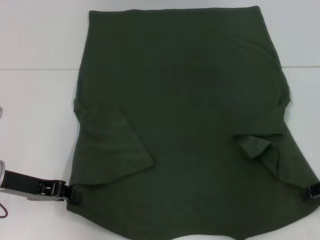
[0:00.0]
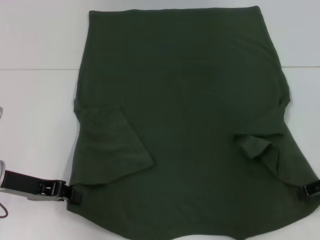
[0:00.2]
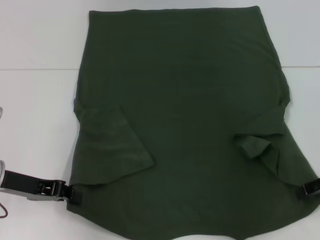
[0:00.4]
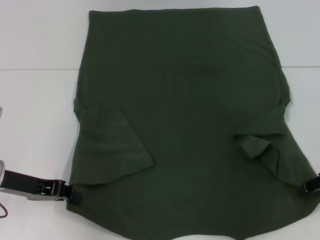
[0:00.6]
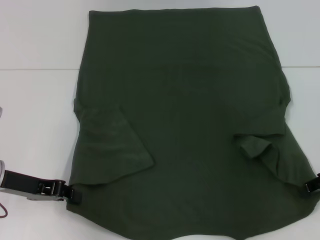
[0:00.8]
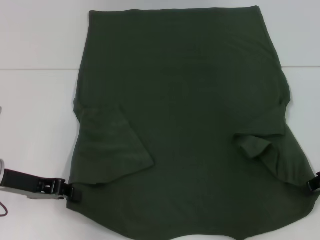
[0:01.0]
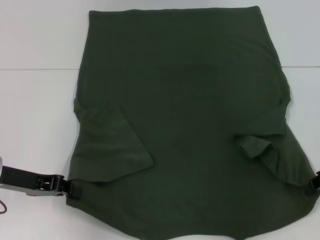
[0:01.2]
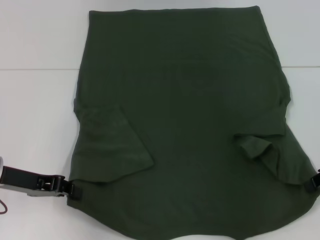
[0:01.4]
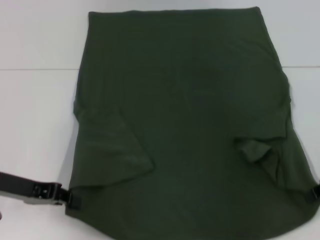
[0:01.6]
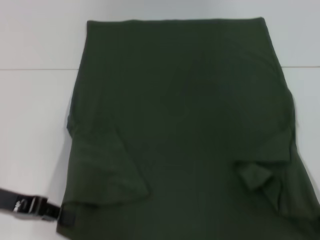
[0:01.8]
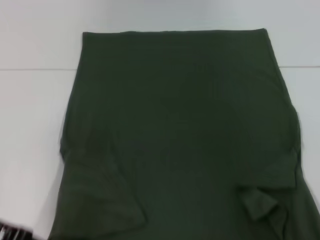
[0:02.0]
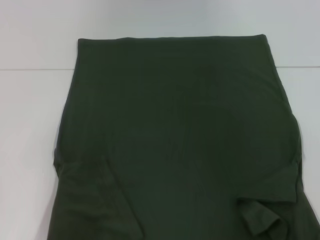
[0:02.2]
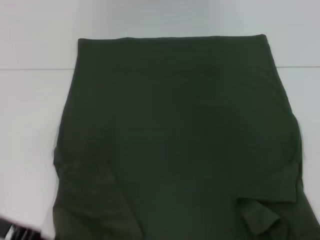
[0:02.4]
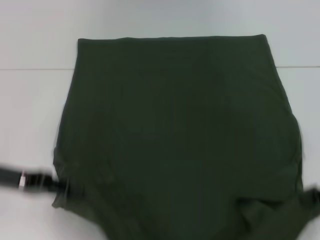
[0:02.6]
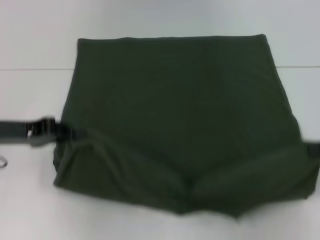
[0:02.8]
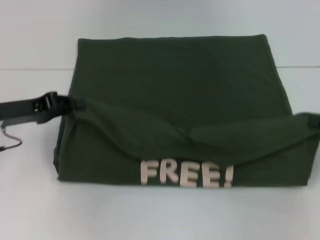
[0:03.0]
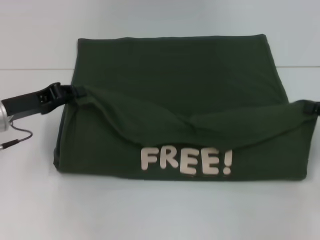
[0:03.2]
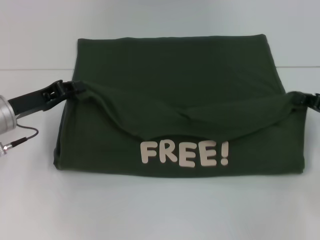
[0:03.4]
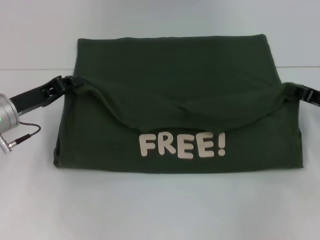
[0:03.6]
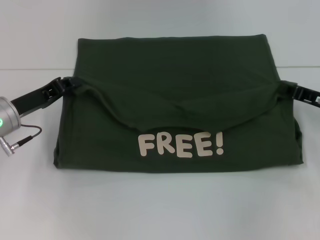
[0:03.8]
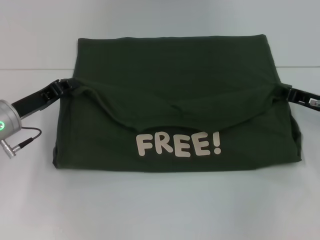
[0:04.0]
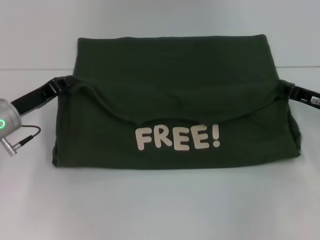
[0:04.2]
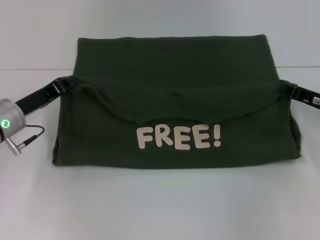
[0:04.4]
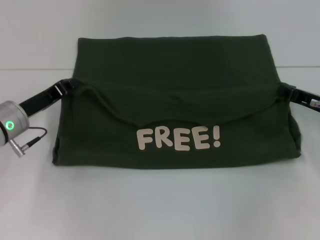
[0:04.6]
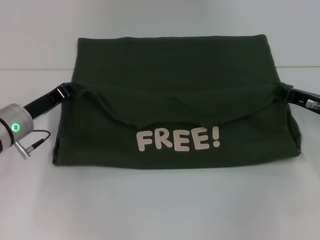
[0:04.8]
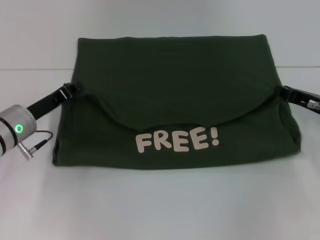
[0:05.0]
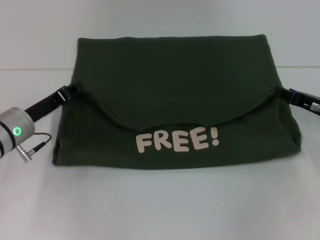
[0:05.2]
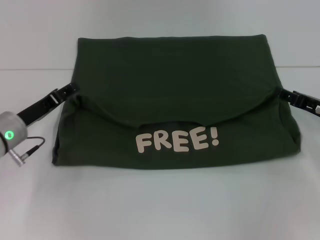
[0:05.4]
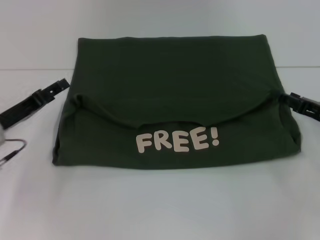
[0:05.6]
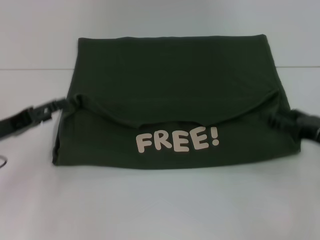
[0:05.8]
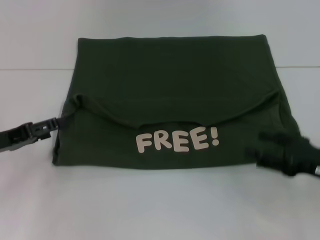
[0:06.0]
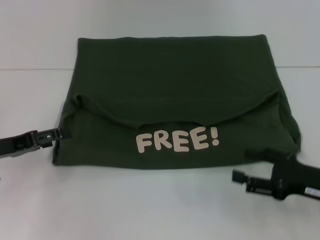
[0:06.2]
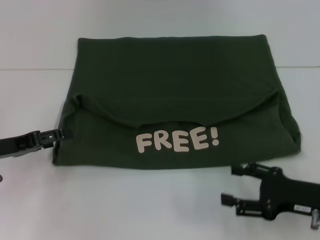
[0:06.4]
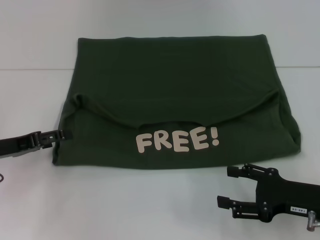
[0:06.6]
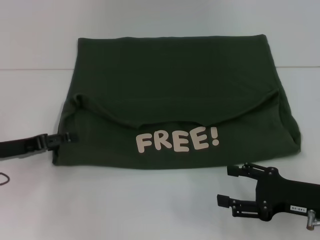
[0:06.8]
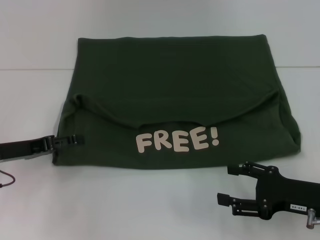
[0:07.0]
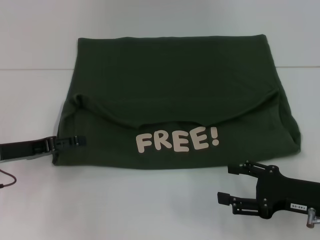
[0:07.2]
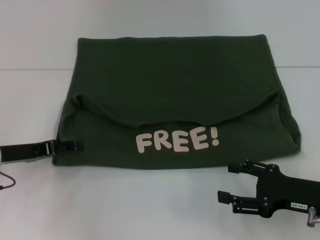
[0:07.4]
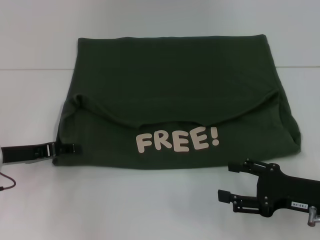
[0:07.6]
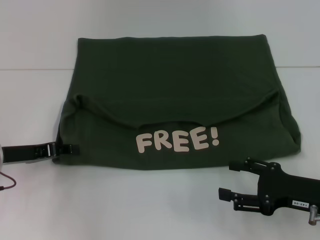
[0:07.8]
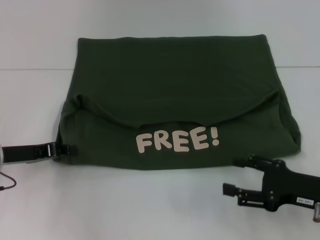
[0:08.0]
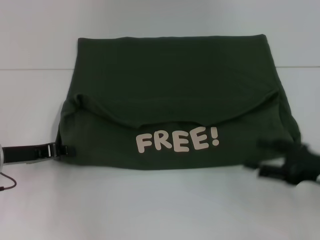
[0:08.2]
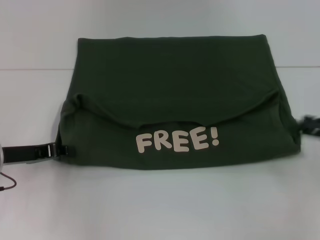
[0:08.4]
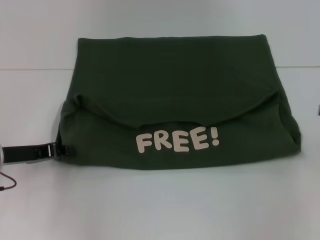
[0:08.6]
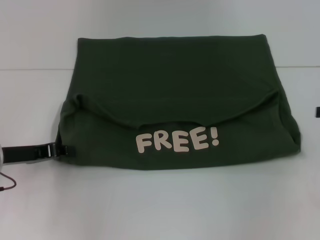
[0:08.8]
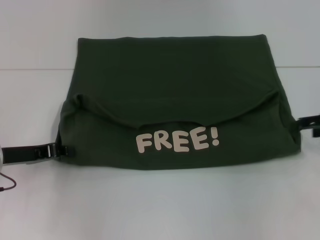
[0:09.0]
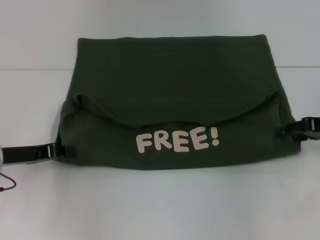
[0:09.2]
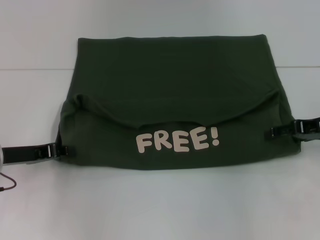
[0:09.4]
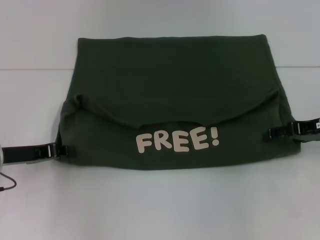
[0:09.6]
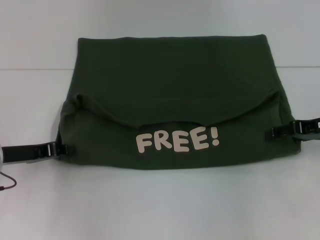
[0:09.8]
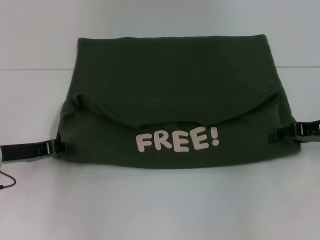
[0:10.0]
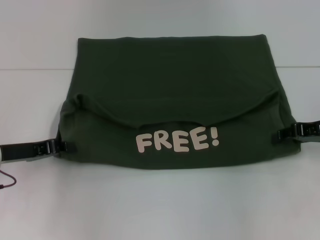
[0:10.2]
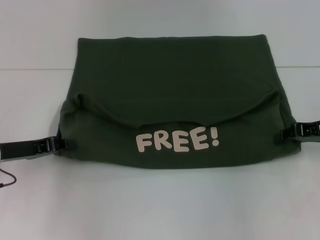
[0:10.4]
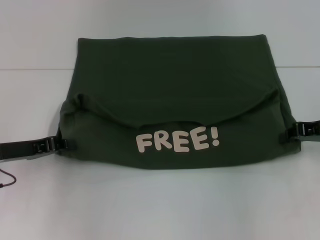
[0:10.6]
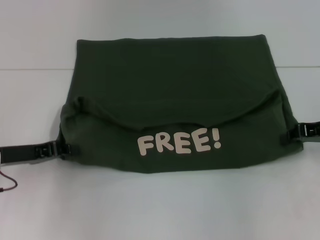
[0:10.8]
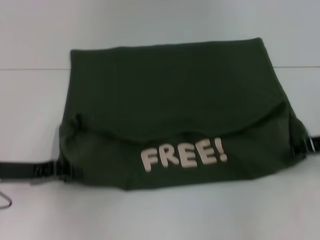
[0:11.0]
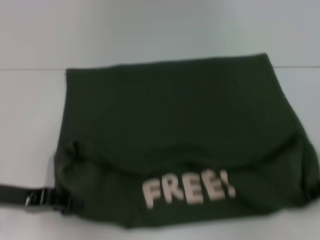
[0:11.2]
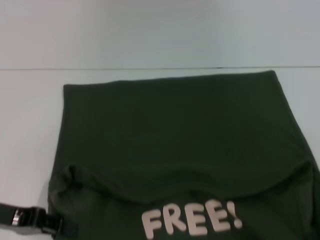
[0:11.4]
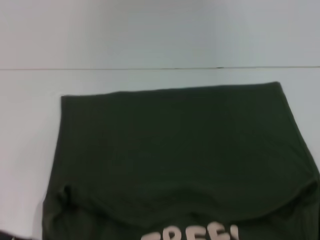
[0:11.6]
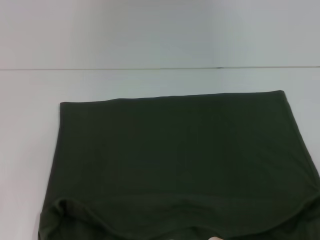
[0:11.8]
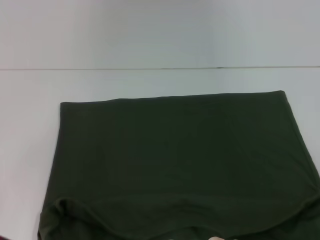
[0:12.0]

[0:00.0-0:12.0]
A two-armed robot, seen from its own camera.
Step, 0:01.6 to 0:05.4: Fold the clothes with your left hand.
Step, 0:01.6 to 0:05.4: Fold the clothes with your right hand.
Step, 0:05.6 to 0:11.6: Pull the clothes with your left hand.
Step, 0:05.6 to 0:11.6: Pull the clothes with your right hand.
0:00.0 to 0:01.6: The right gripper closes.
0:01.6 to 0:03.0: The left gripper moves some 5 cm.
0:03.0 to 0:04.4: The left gripper changes place by about 5 cm, while the right gripper shifts some 10 cm to the left, forward and downward.
0:04.4 to 0:06.0: The left gripper is displaced backward and to the left by approximately 10 cm, and opens. Meanwhile the right gripper heads backward, covering about 10 cm, and opens its fingers.
0:06.0 to 0:07.6: The grippers make only small movements.
0:07.6 to 0:09.0: The right gripper shifts approximately 15 cm forward, upward and to the right.
0:09.0 to 0:10.4: The right gripper closes up.
0:10.4 to 0:12.0: The right gripper shifts some 15 cm backward, and closes up. The left gripper travels backward by about 10 cm.

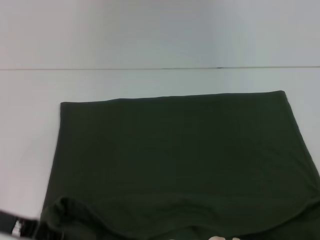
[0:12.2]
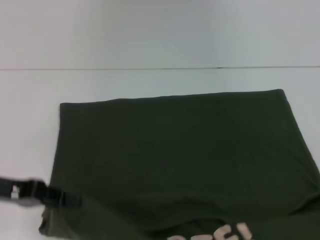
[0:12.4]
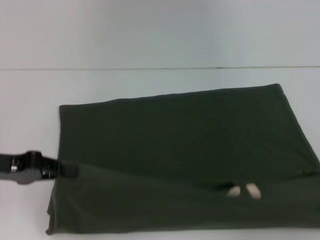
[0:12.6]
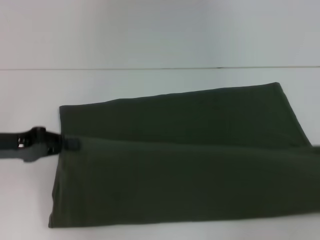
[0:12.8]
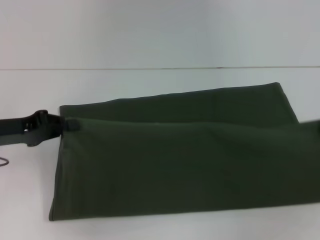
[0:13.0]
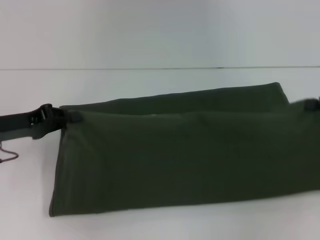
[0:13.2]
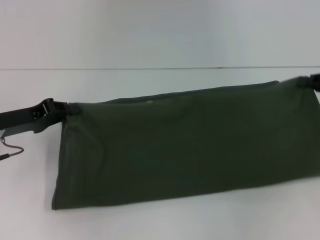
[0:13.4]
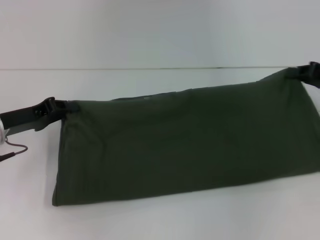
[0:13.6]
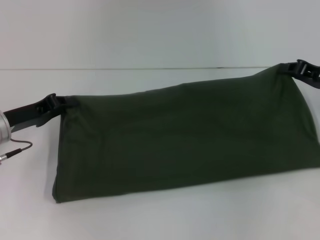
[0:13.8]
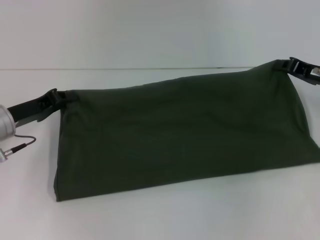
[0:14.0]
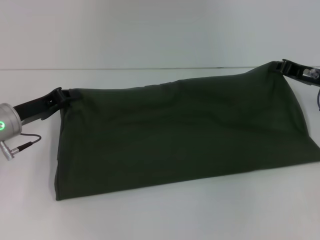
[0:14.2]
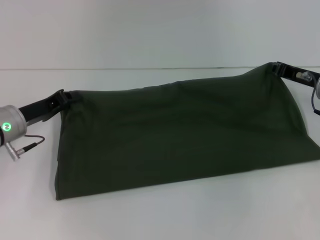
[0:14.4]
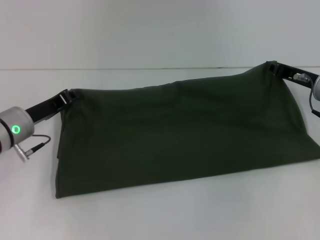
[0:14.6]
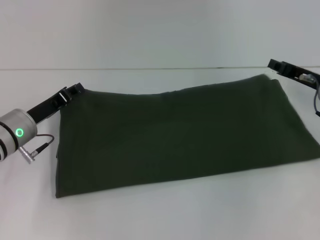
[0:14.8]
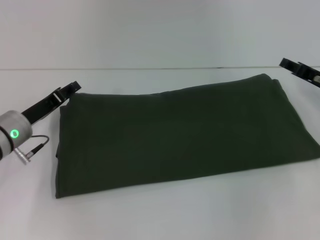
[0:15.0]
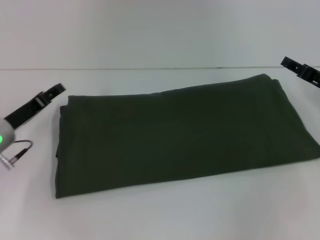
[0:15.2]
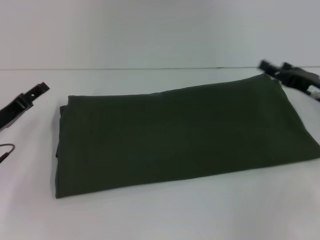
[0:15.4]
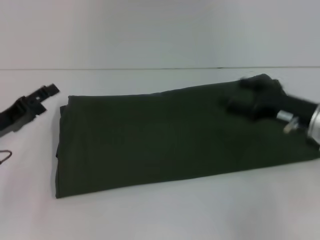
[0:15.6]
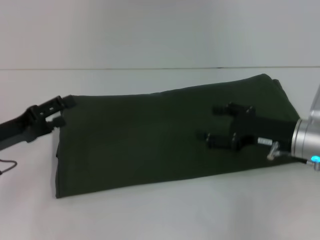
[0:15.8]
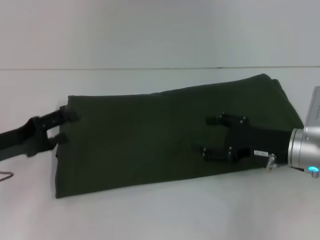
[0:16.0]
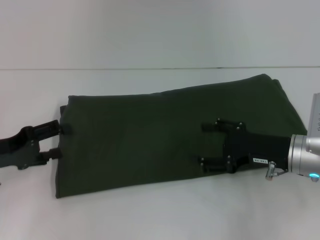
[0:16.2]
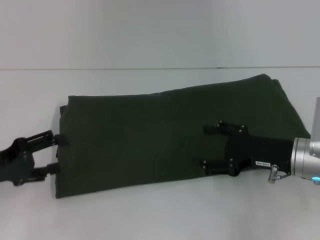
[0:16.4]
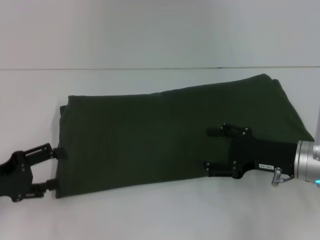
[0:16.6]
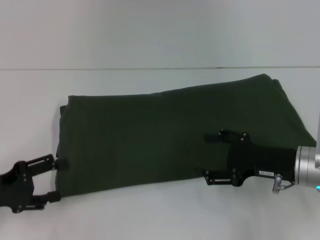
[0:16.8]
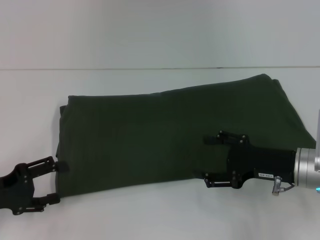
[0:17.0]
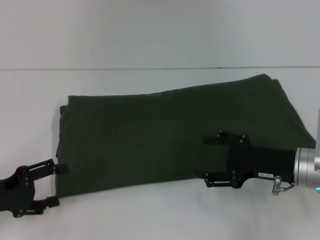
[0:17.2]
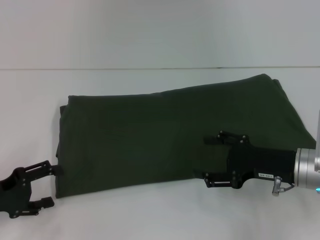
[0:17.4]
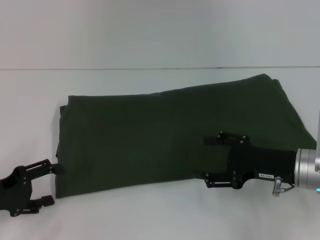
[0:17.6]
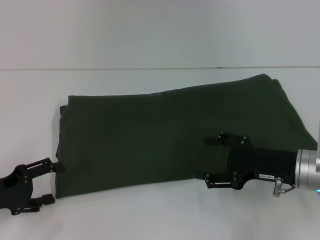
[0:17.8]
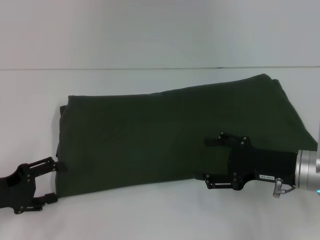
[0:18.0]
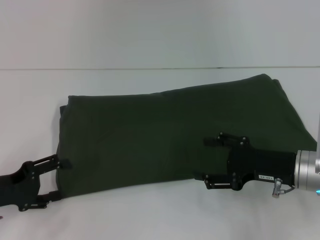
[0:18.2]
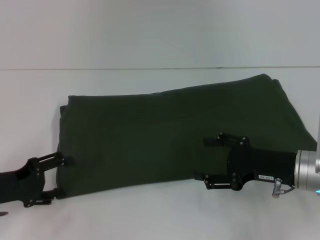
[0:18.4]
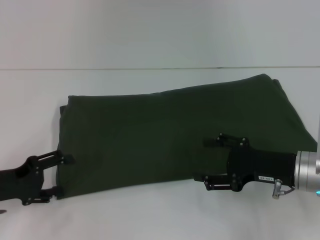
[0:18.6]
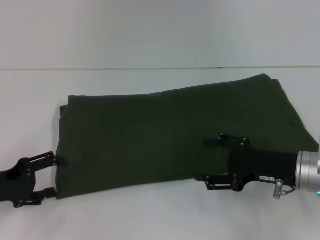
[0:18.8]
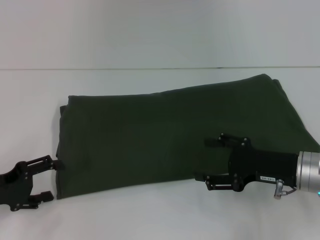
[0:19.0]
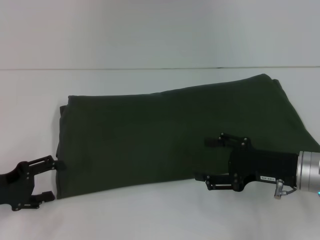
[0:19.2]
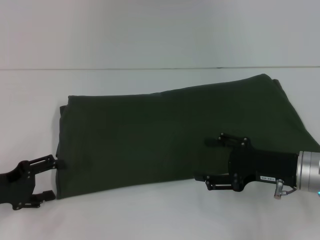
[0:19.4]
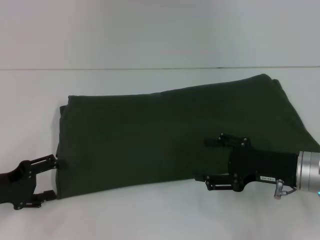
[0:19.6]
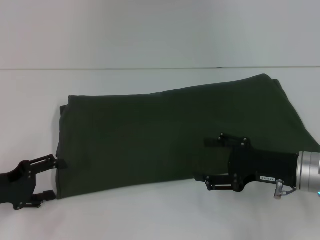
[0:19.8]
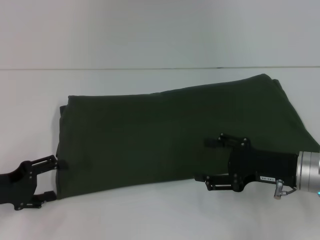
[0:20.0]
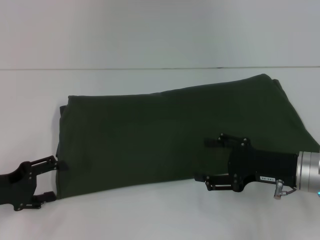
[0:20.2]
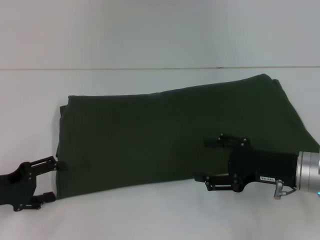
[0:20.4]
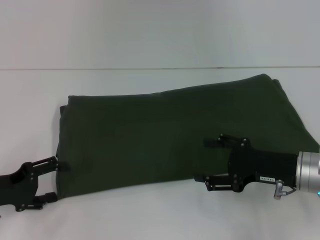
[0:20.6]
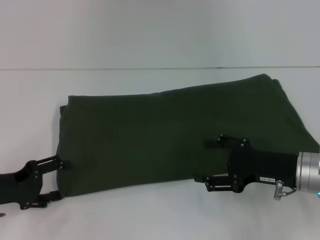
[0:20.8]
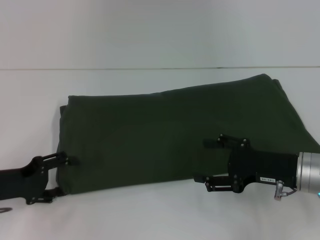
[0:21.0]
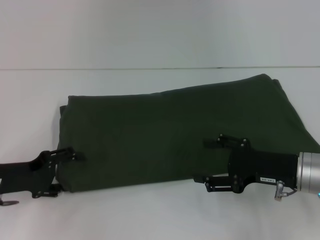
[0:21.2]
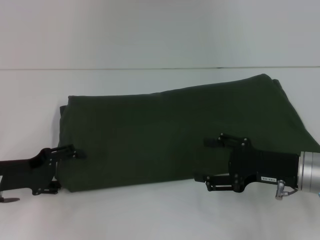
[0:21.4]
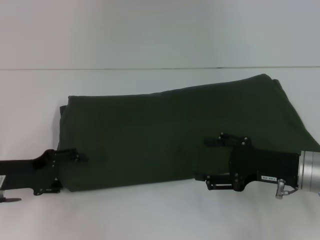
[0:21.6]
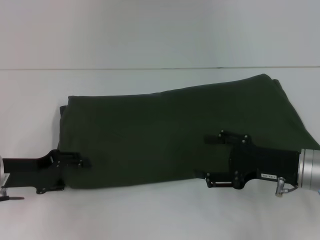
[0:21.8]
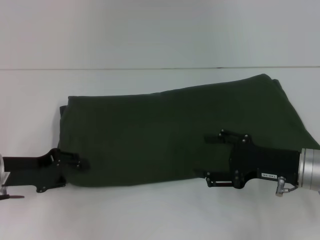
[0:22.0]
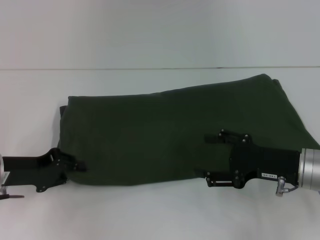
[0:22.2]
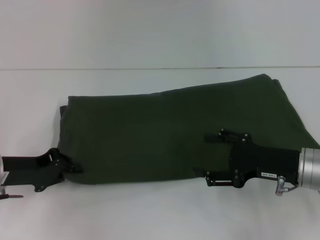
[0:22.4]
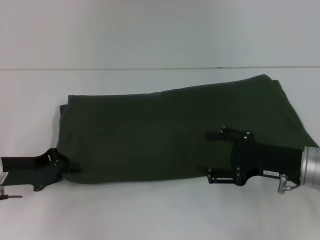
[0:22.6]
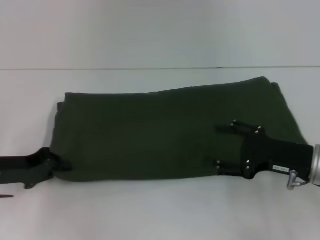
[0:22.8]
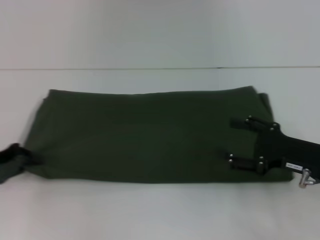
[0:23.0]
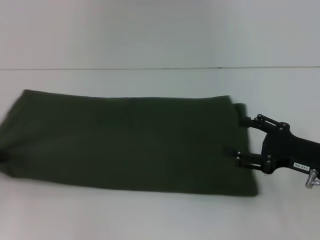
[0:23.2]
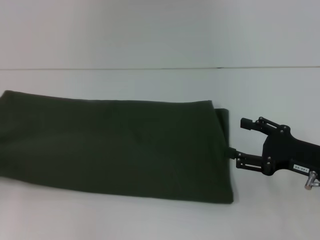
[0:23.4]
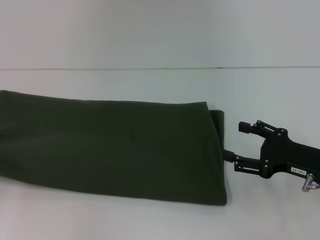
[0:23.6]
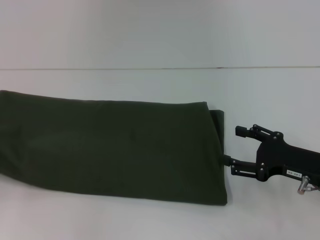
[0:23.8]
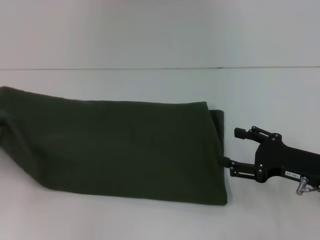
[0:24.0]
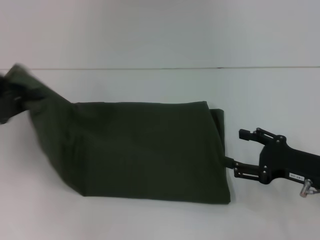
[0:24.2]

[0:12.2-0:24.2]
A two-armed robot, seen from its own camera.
Step, 0:12.2 to 0:15.0: Fold the clothes with your right hand.
0:12.2 to 0:13.8: The left gripper shifts some 10 cm forward; the right gripper heads forward, covering some 15 cm.
0:13.8 to 0:15.2: The right gripper opens. The left gripper opens up.
0:15.2 to 0:16.6: The right gripper travels to the left and backward by some 10 cm, and opens up. The left gripper heads backward and to the left, covering some 10 cm, and opens up.
0:16.6 to 0:18.2: The grippers move only a little.
0:18.2 to 0:19.8: The two grippers keep their place.
0:19.8 to 0:21.2: The grippers move only a little.
0:21.2 to 0:22.6: The left gripper closes.
0:22.6 to 0:24.2: The left gripper heads upward, covering roughly 10 cm.
